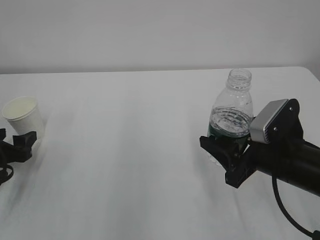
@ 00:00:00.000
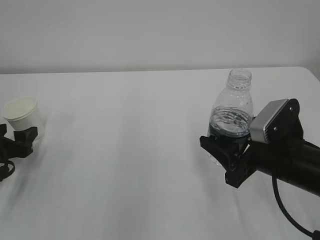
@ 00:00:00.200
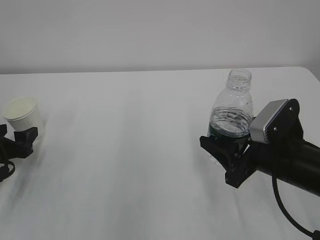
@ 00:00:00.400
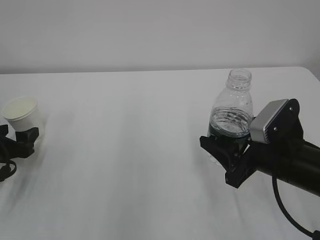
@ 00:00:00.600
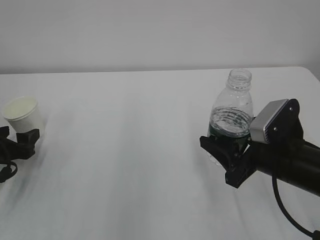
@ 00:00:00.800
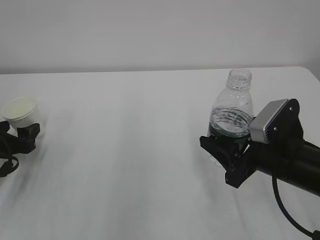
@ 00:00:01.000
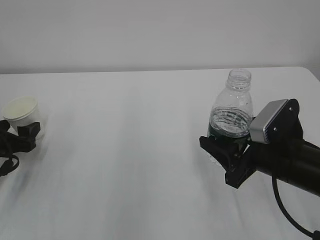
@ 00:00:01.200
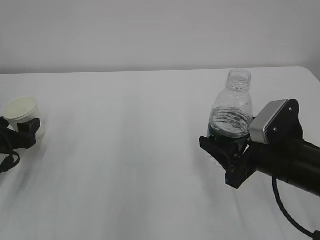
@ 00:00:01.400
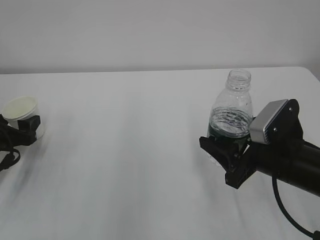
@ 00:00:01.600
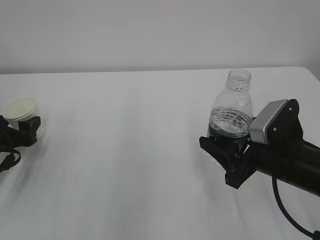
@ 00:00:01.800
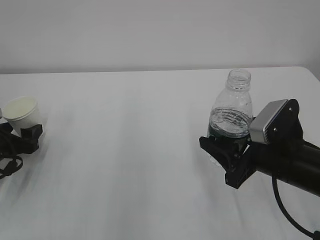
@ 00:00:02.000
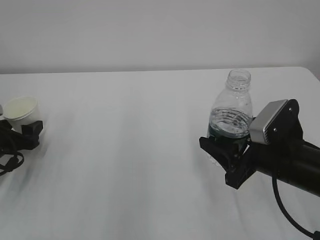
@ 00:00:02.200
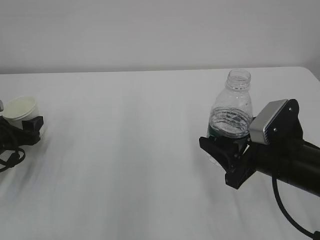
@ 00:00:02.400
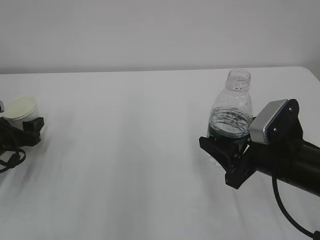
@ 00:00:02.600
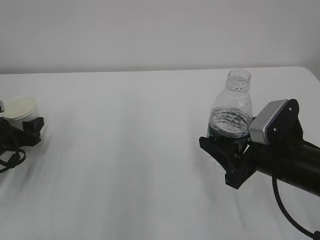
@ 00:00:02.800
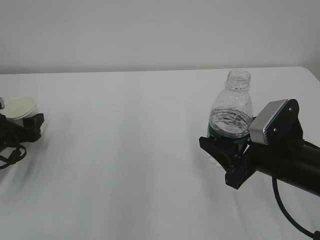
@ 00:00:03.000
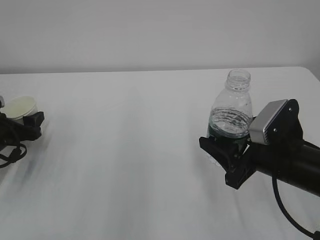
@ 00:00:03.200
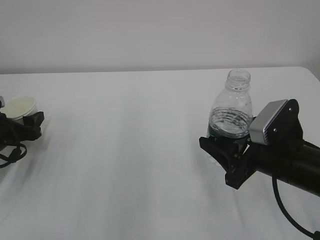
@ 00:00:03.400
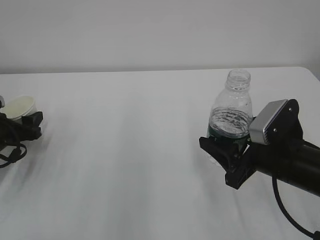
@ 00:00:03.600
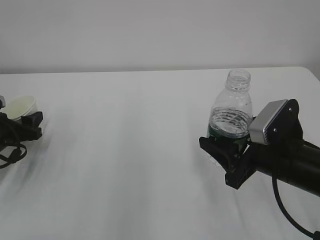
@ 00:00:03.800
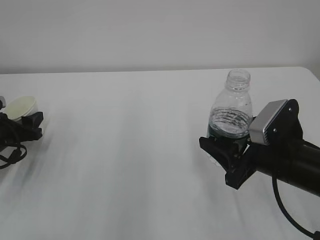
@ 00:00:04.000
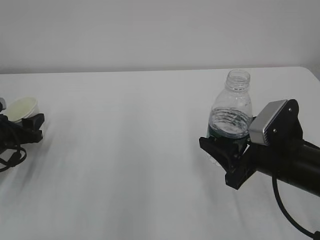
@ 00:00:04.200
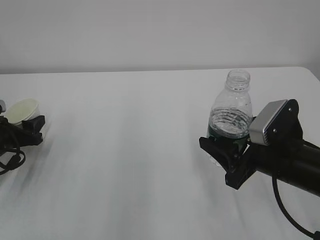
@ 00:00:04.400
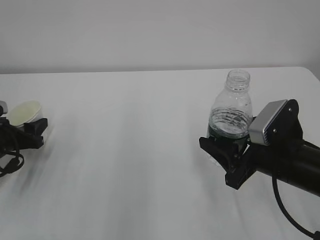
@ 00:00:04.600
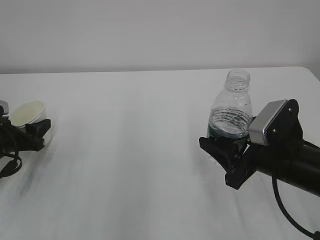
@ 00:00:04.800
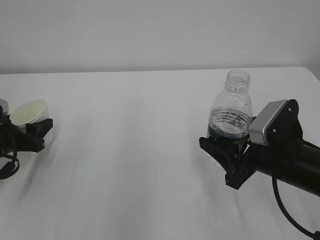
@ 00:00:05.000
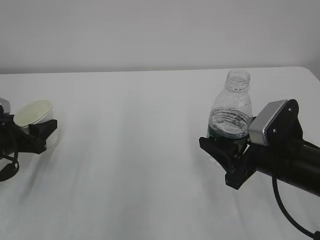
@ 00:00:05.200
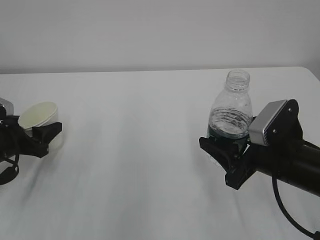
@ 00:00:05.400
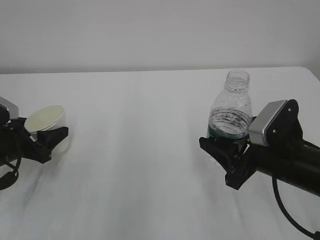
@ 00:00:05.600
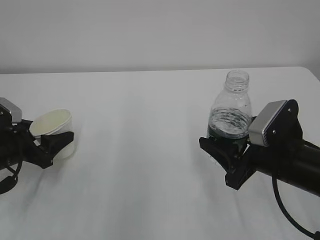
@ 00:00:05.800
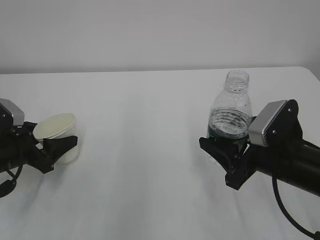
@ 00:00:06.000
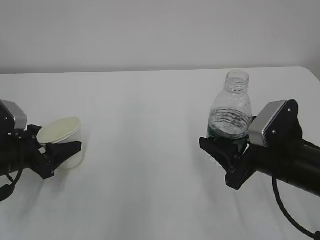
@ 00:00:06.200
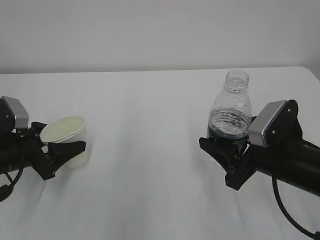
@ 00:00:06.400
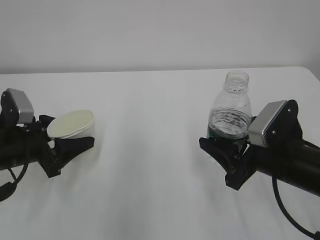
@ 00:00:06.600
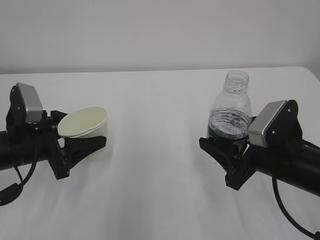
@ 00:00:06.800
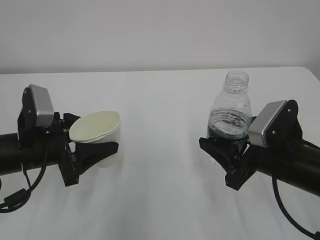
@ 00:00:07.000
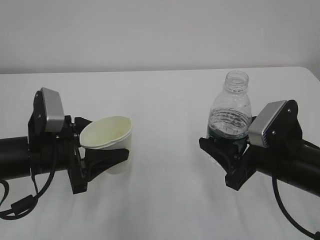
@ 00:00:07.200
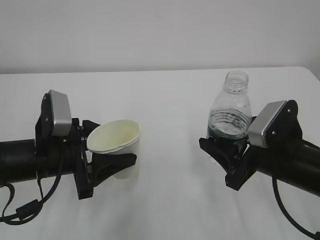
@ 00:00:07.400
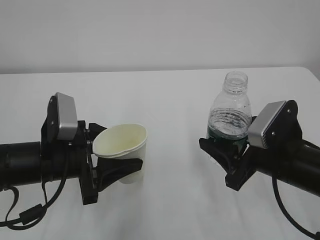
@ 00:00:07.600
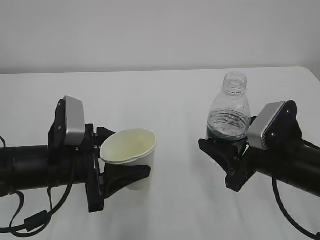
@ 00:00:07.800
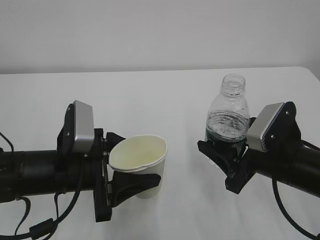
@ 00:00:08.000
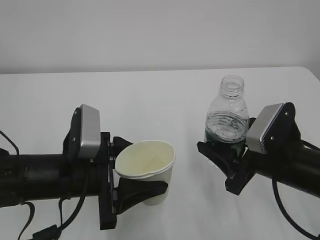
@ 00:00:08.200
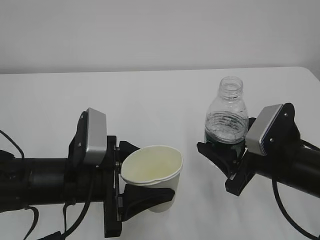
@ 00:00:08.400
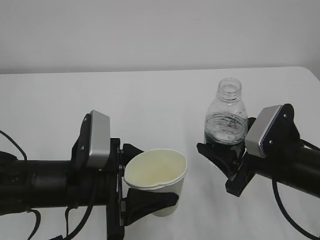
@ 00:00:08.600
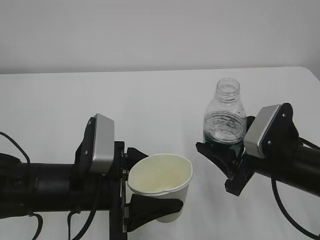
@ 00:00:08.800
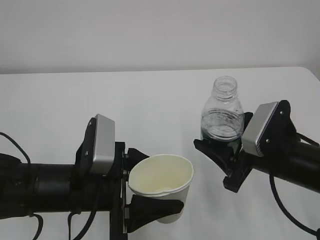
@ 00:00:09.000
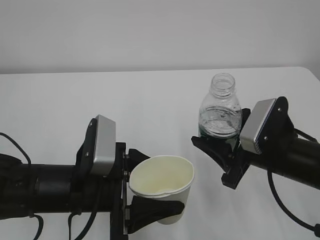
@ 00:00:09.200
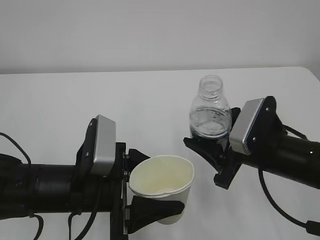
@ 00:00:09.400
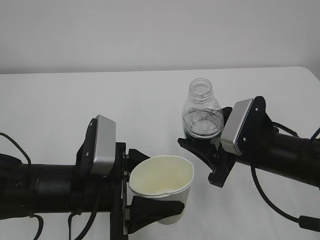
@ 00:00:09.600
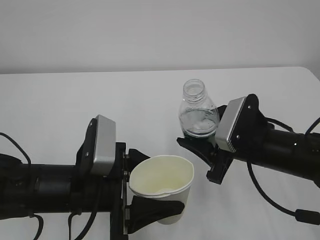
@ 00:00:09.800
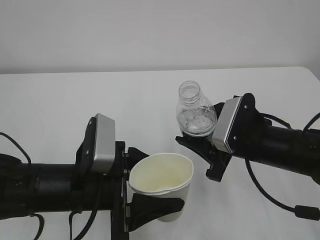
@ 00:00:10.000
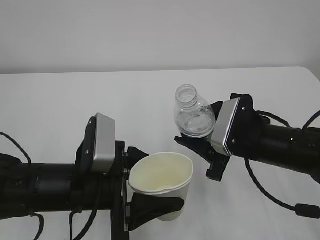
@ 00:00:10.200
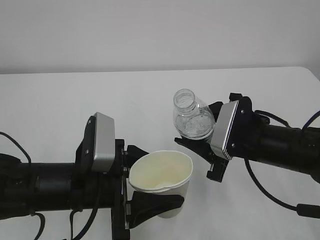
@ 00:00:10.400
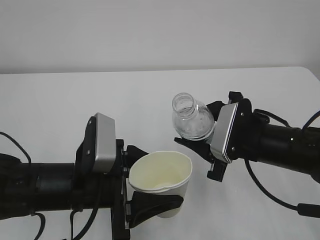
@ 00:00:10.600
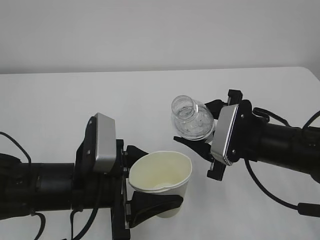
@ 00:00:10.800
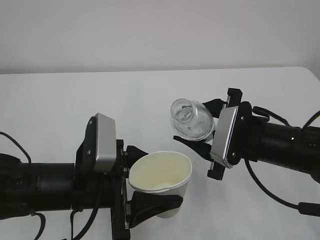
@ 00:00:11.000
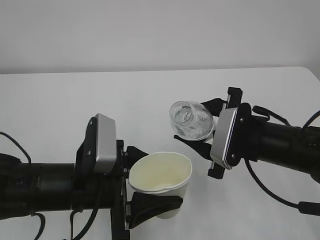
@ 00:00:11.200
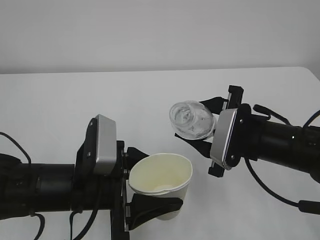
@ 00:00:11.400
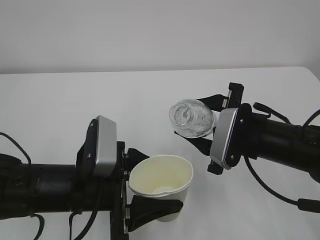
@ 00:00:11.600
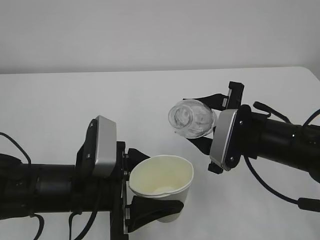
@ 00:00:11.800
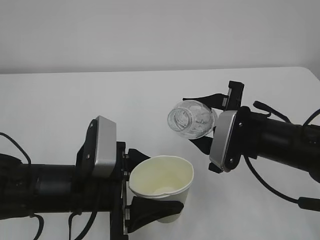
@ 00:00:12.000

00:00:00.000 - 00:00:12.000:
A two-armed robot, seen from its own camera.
00:00:00.000 - 00:00:03.000: The grippers stay close to where they were, moving slightly.
00:00:03.000 - 00:00:04.400: The left gripper closes its fingers.
00:00:04.400 - 00:00:06.000: The left gripper changes place by about 5 cm.
00:00:06.000 - 00:00:07.600: The left gripper goes roughly 10 cm to the right.
00:00:07.600 - 00:00:09.000: The left gripper travels to the right by approximately 5 cm.
00:00:09.000 - 00:00:10.400: The grippers move only a little.
00:00:10.400 - 00:00:12.000: The grippers move only a little.

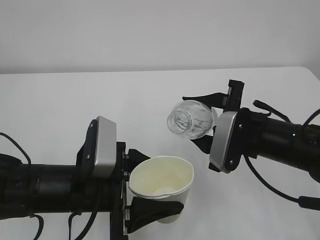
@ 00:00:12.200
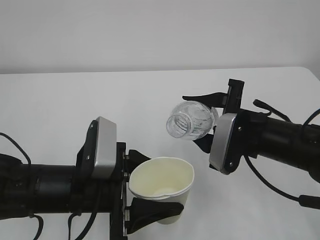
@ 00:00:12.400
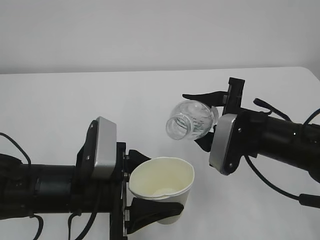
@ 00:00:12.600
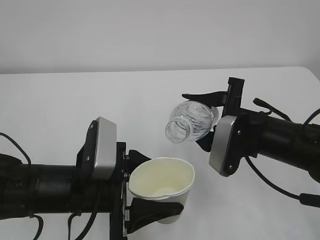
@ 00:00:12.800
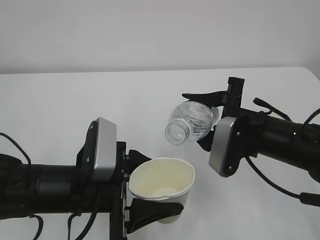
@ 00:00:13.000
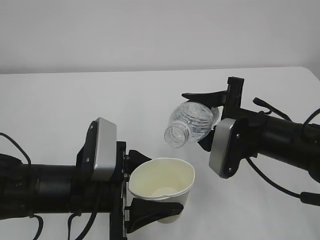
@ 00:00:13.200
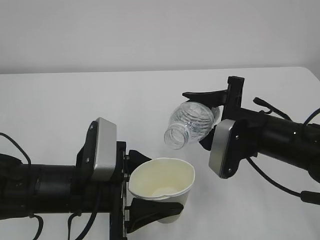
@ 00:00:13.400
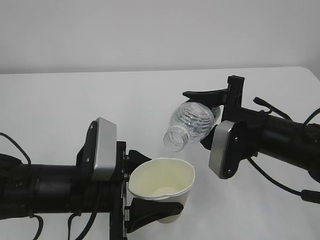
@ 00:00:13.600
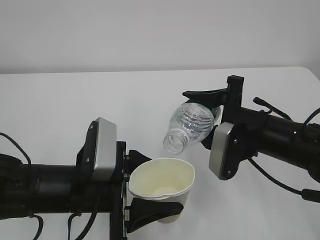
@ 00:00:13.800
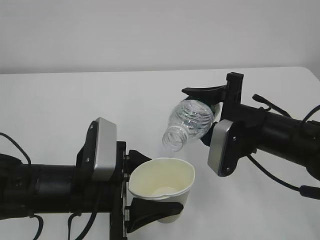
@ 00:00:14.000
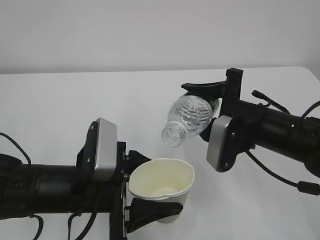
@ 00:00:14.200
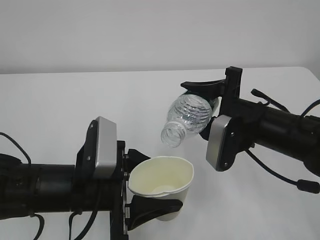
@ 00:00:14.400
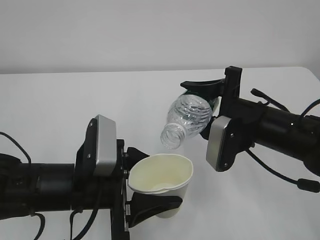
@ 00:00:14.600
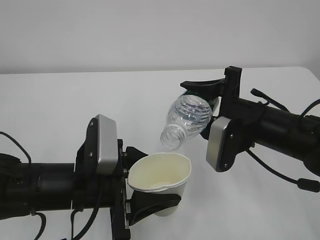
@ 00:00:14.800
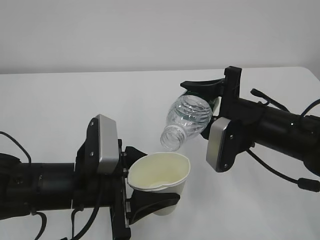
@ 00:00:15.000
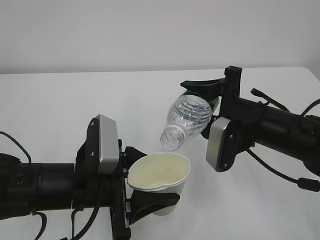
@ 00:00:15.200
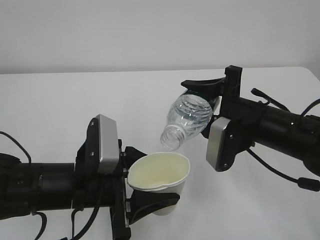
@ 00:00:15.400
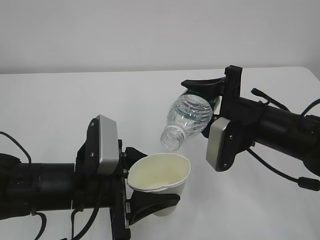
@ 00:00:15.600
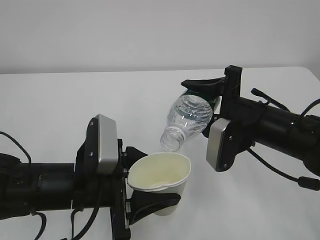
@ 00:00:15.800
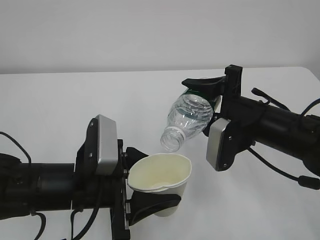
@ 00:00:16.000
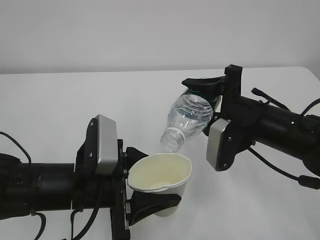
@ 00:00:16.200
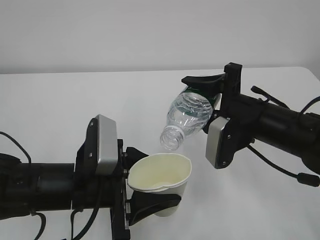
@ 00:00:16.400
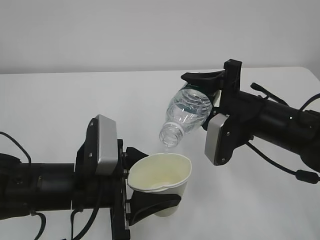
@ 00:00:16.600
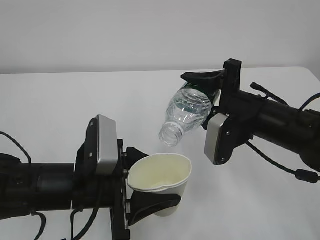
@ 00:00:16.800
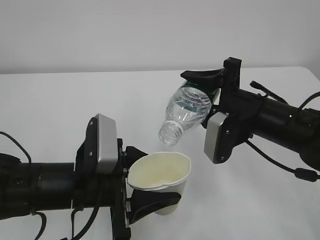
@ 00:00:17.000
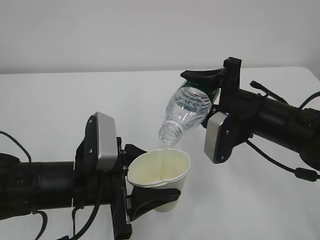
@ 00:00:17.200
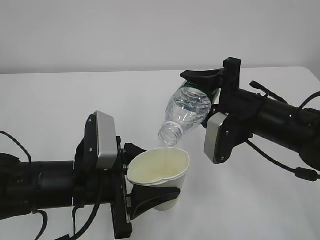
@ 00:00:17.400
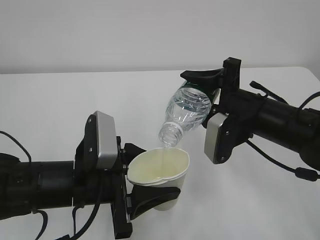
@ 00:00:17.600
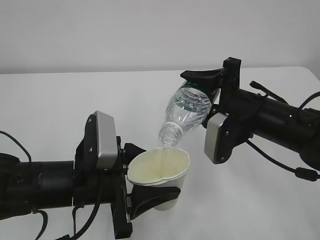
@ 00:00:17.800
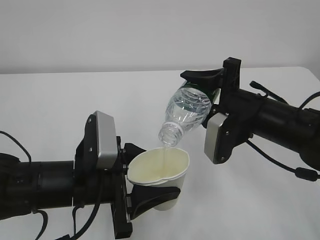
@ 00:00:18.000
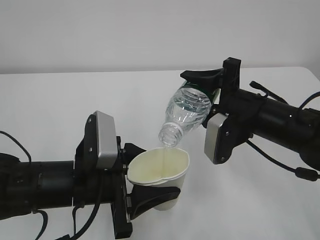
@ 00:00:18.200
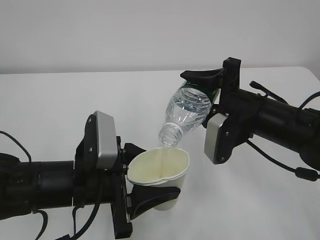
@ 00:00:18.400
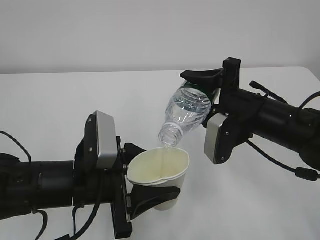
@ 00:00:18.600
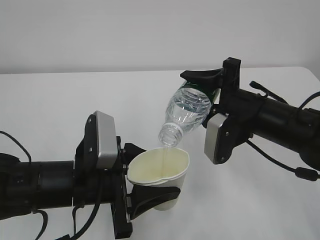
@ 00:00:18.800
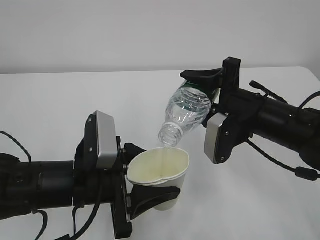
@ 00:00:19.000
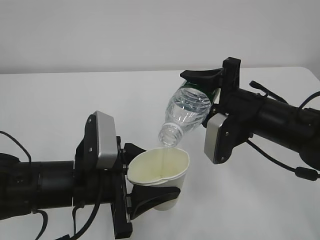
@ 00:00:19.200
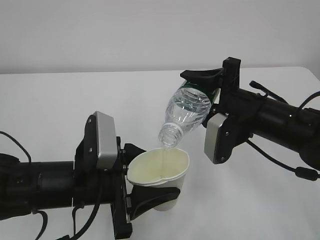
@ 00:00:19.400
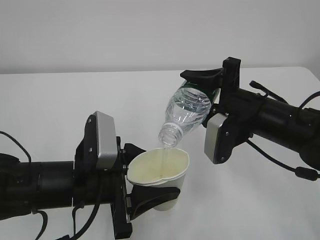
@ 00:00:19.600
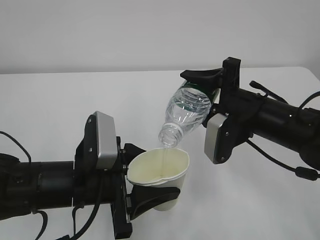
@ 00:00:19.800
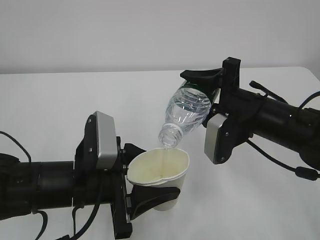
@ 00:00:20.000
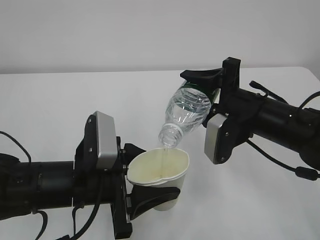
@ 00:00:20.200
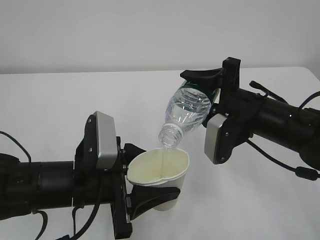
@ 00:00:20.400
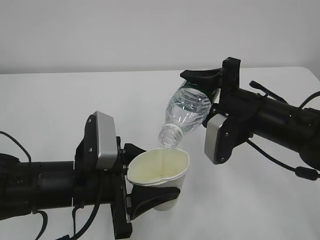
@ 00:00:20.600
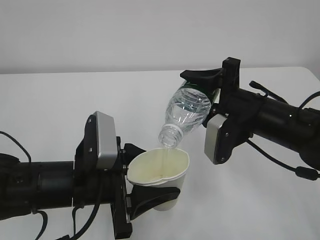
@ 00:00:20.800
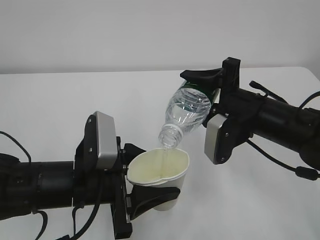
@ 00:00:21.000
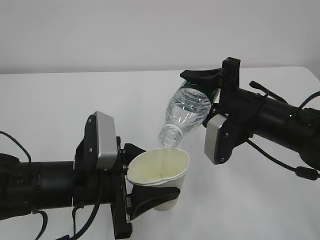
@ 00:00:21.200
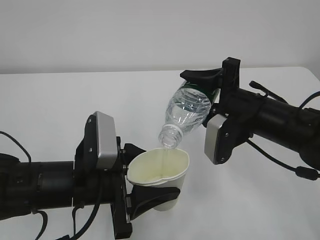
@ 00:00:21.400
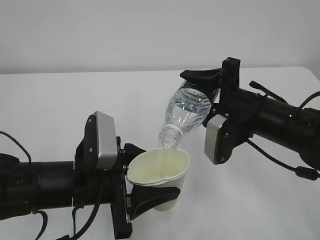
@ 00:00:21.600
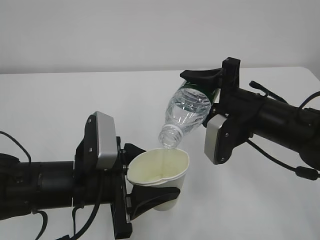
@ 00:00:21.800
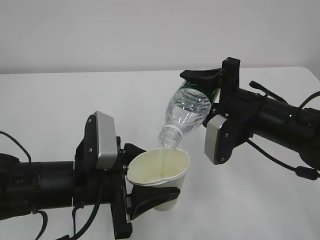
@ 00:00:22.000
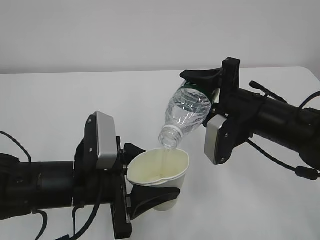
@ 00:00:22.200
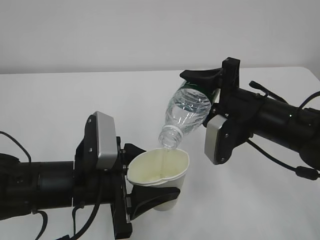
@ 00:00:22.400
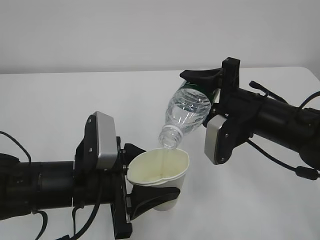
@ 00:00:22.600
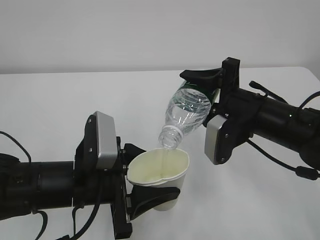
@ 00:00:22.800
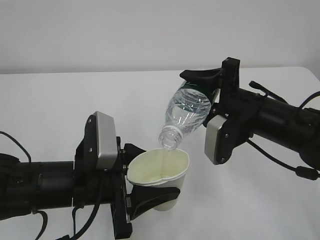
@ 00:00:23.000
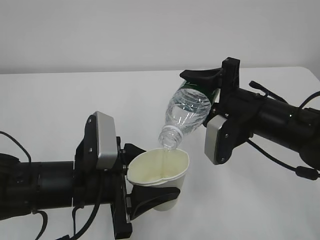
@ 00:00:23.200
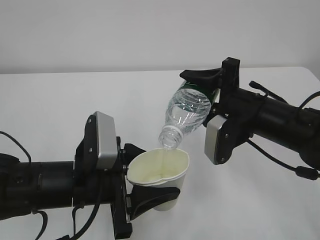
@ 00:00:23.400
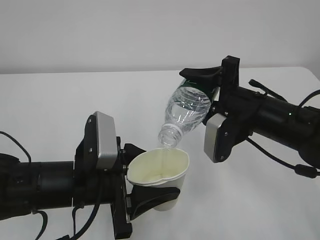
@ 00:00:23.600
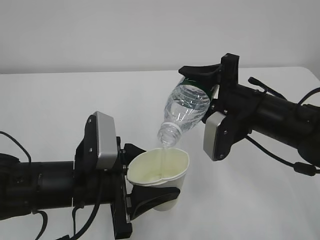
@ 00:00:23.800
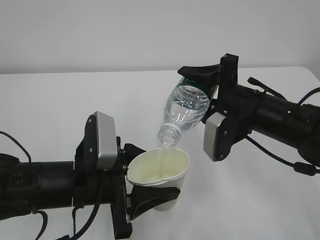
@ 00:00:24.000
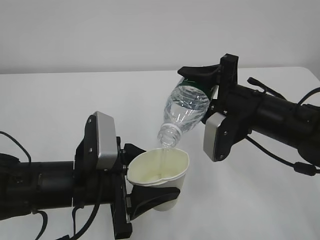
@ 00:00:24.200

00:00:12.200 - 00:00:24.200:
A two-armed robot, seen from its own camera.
00:00:12.200 - 00:00:13.800: There are only small adjustments of the grippers.
00:00:13.800 - 00:00:16.600: The grippers move only a little.
00:00:16.600 - 00:00:22.600: Both grippers stay about where they are.
00:00:22.600 - 00:00:24.200: Both grippers stay put.
